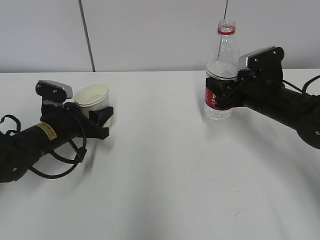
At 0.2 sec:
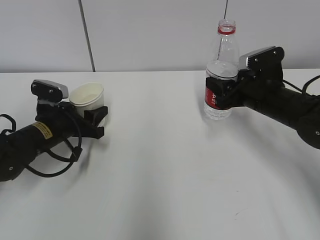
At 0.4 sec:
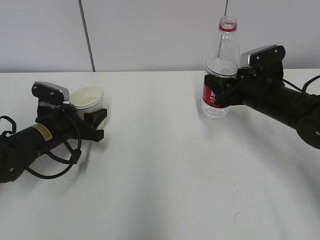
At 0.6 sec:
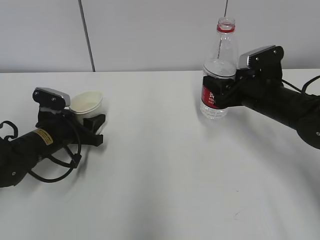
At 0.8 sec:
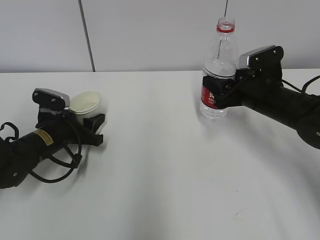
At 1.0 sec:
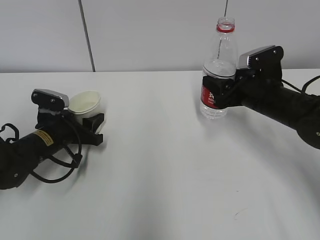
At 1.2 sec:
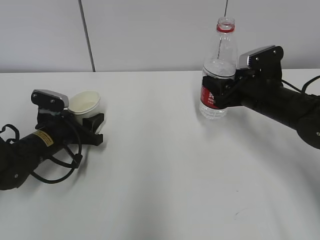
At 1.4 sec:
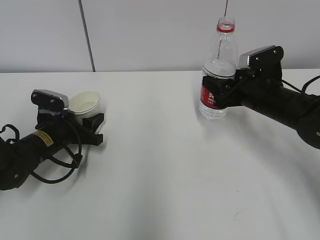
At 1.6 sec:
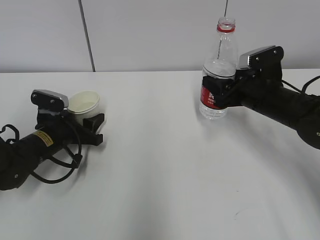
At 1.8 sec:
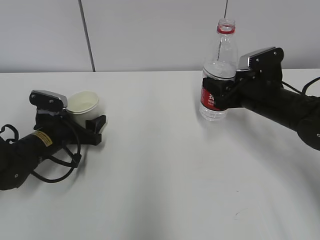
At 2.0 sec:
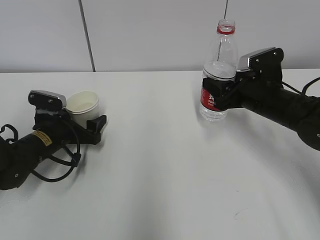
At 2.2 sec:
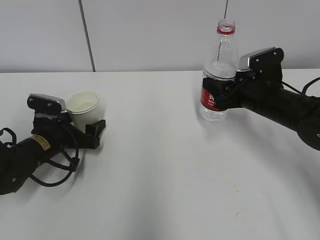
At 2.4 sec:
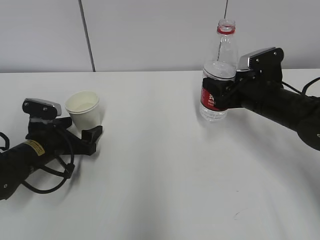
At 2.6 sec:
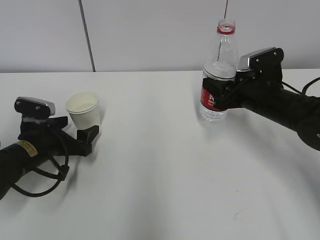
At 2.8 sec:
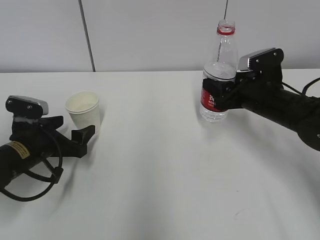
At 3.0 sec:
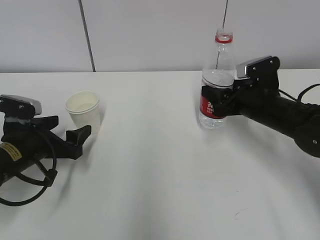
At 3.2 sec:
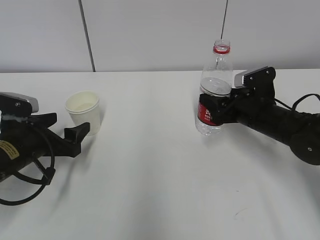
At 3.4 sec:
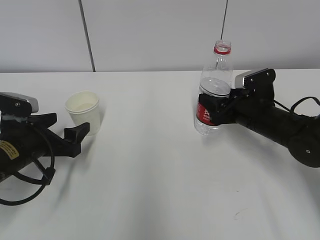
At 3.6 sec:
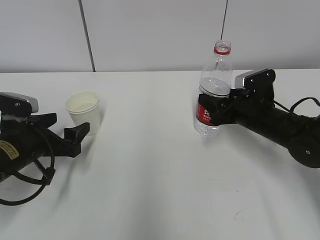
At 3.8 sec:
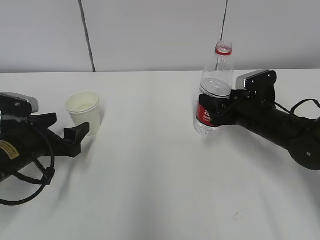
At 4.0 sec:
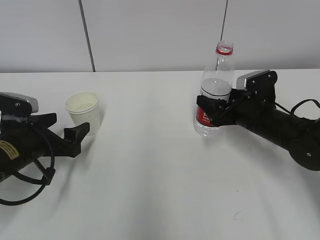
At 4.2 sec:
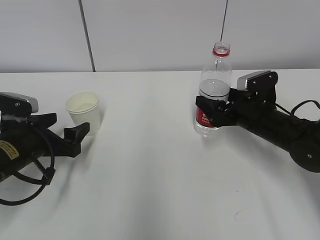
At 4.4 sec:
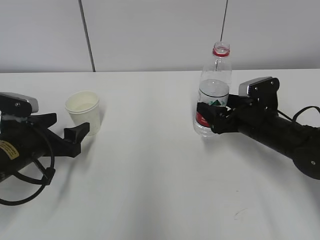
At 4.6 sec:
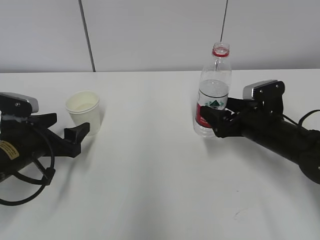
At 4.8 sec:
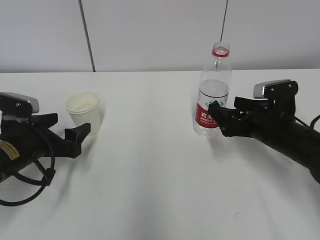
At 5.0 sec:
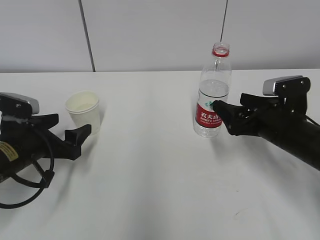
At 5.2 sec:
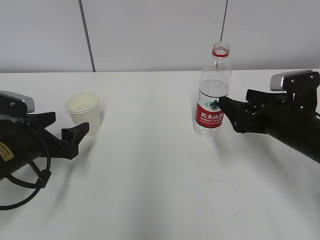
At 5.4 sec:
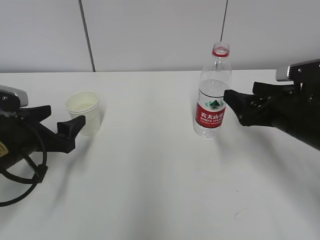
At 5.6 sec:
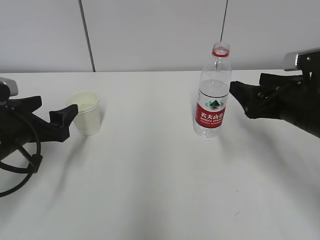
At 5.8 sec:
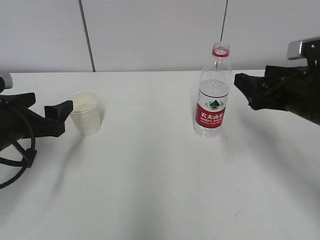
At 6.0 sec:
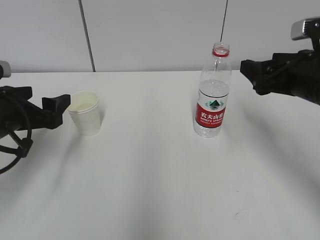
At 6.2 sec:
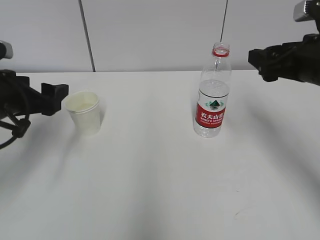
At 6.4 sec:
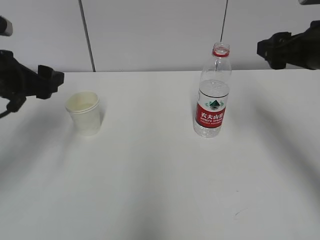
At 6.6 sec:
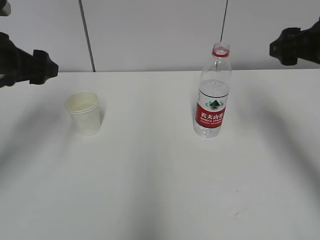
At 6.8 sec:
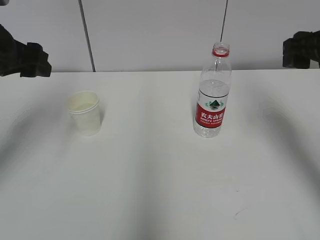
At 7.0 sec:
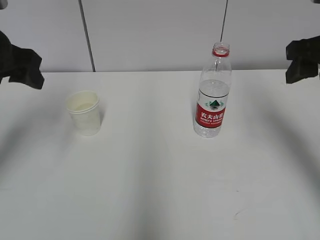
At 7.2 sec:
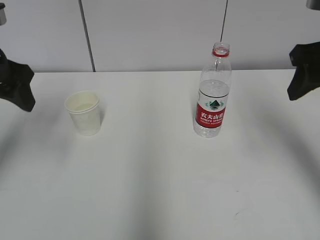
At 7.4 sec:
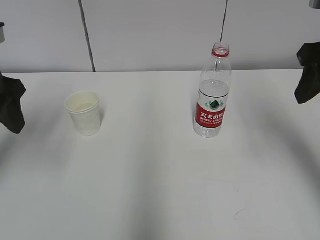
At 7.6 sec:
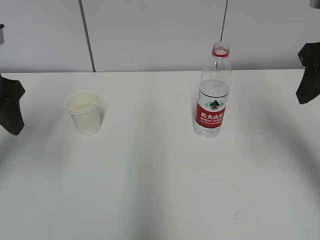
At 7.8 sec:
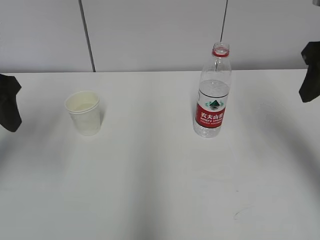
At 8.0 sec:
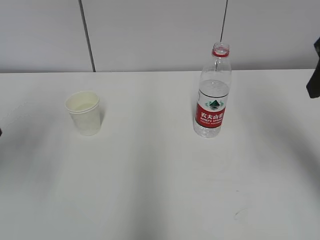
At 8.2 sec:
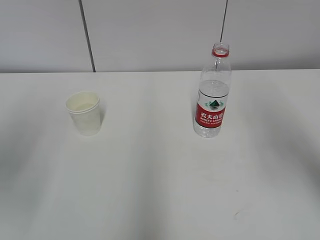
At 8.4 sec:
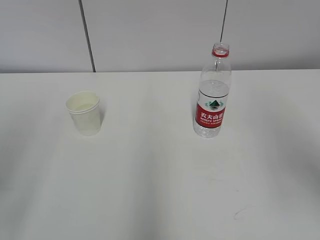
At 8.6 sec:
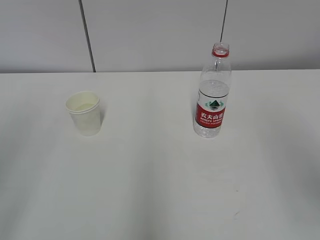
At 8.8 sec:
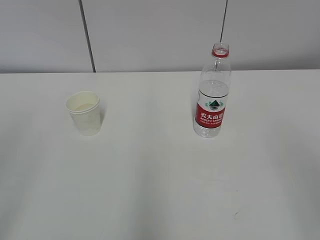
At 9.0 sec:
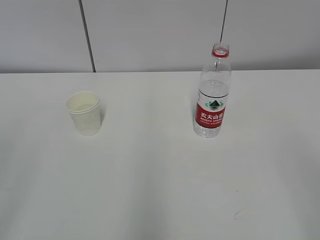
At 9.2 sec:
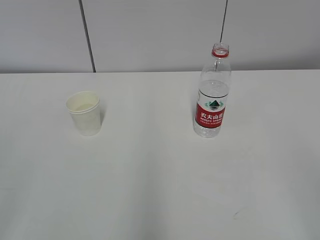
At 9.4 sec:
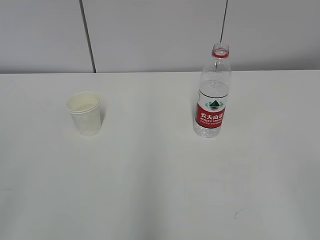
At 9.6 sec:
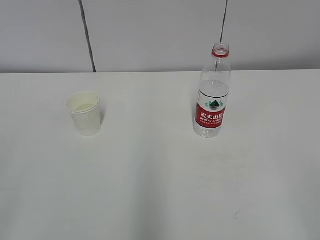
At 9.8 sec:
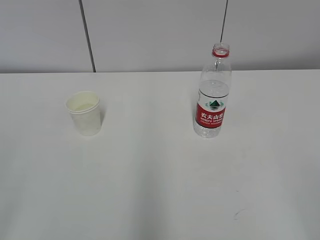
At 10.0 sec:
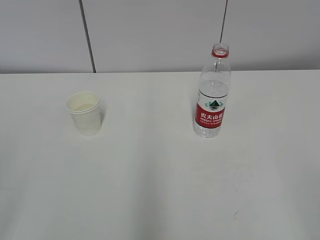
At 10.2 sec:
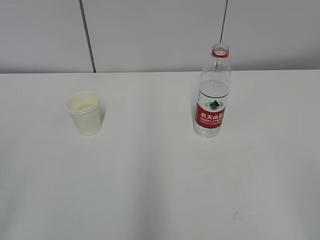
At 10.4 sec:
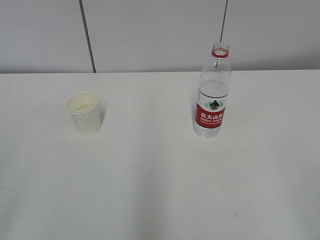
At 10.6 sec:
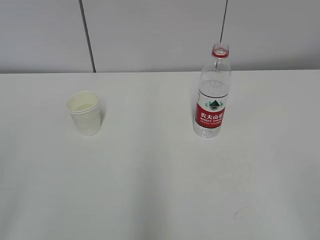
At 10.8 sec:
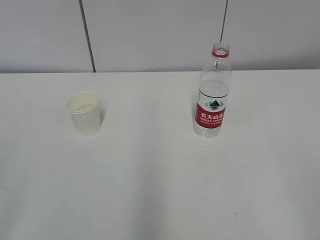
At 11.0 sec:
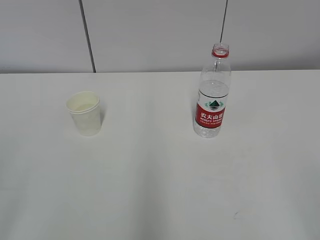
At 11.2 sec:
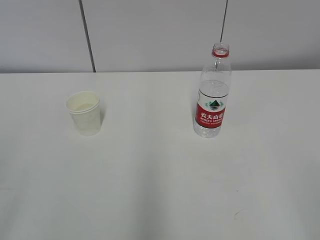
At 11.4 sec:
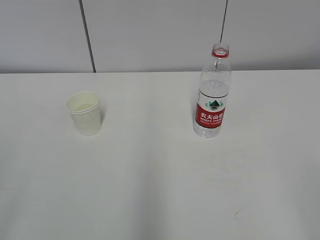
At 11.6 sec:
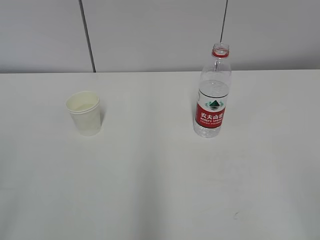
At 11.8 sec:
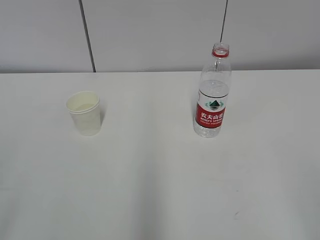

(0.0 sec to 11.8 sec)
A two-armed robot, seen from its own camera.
0.0 sec - 1.4 sec: The grippers stay close to where they were, moving slightly.
1.4 sec - 3.0 sec: The left gripper goes some 5 cm backward, and opens its fingers.
3.0 sec - 4.4 sec: The right gripper opens its fingers.
4.4 sec - 6.0 sec: The left gripper goes approximately 5 cm upward, while the right gripper heads upward and backward, covering about 15 cm.
6.0 sec - 7.4 sec: The grippers both shift upward by approximately 10 cm. The right gripper closes up.
7.4 sec - 8.8 sec: The two grippers go about 20 cm backward.
10.4 sec - 11.8 sec: Neither gripper changes place.

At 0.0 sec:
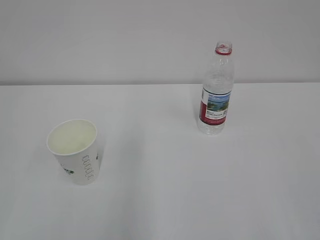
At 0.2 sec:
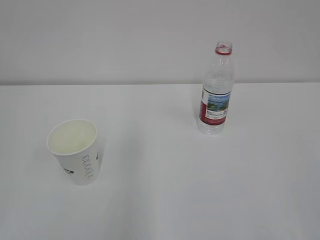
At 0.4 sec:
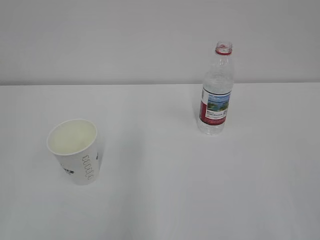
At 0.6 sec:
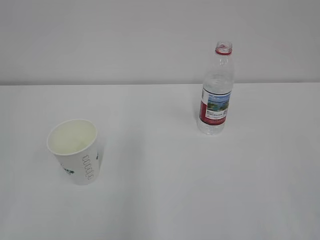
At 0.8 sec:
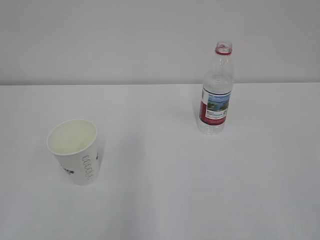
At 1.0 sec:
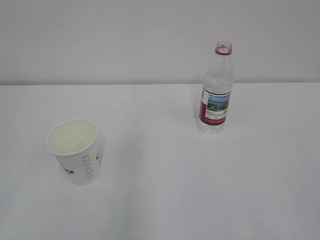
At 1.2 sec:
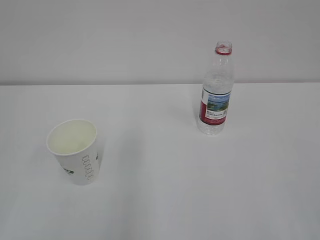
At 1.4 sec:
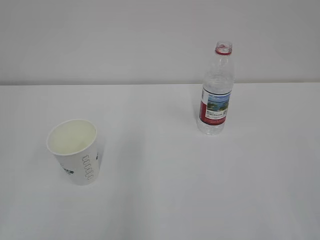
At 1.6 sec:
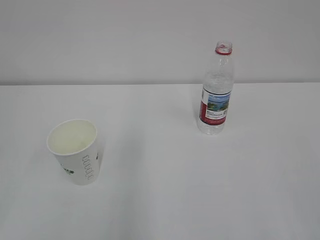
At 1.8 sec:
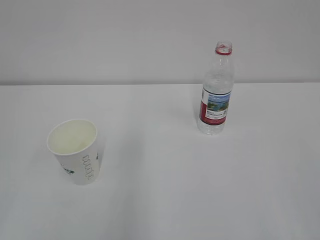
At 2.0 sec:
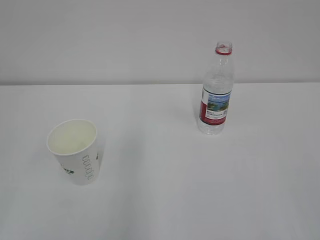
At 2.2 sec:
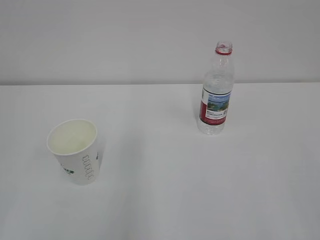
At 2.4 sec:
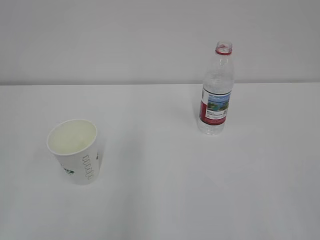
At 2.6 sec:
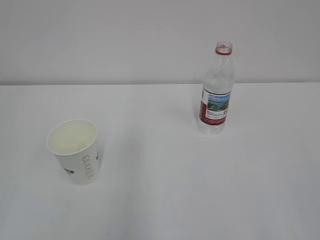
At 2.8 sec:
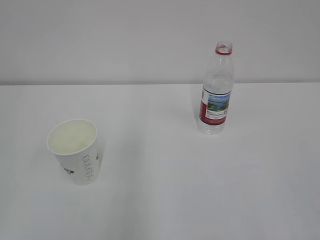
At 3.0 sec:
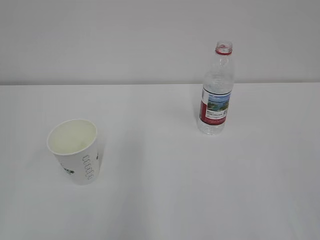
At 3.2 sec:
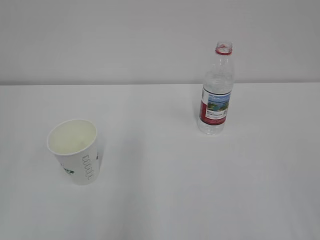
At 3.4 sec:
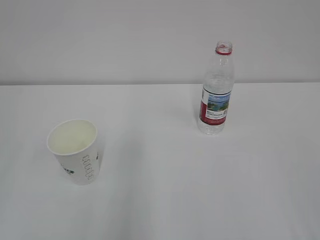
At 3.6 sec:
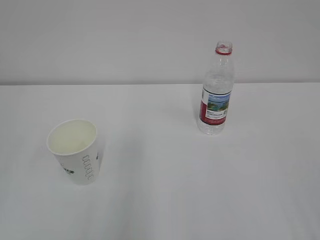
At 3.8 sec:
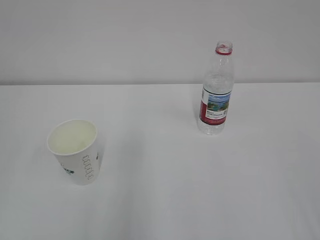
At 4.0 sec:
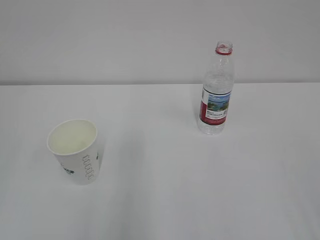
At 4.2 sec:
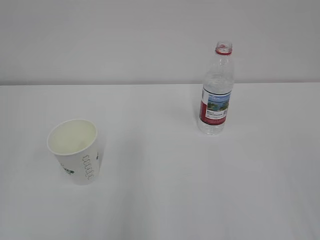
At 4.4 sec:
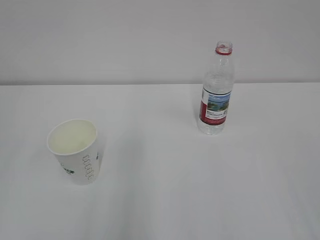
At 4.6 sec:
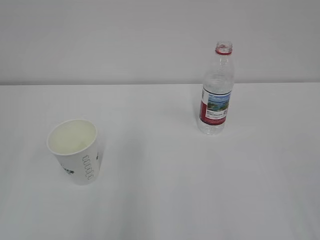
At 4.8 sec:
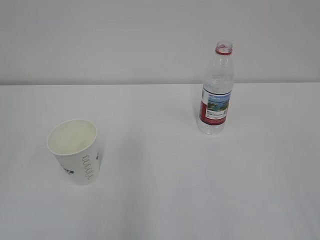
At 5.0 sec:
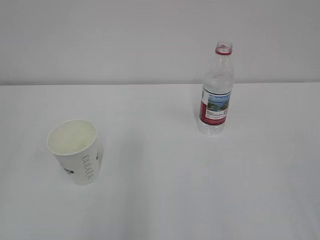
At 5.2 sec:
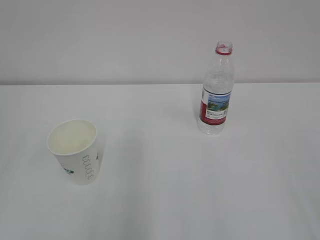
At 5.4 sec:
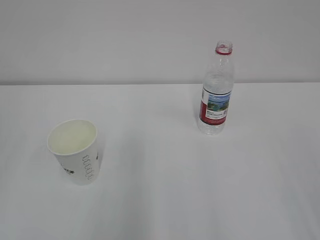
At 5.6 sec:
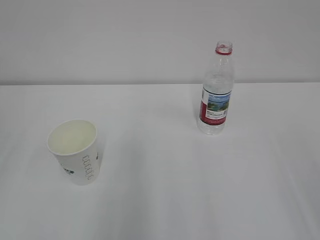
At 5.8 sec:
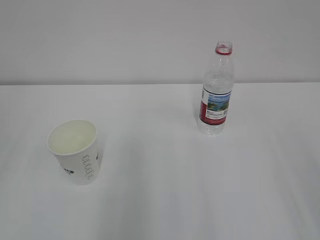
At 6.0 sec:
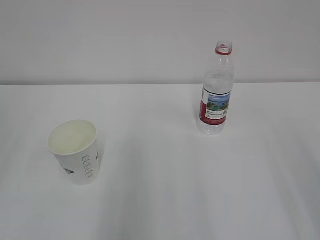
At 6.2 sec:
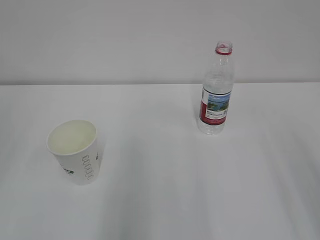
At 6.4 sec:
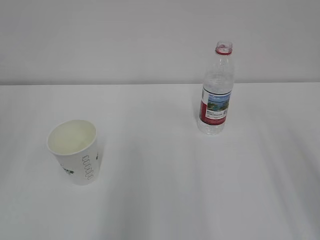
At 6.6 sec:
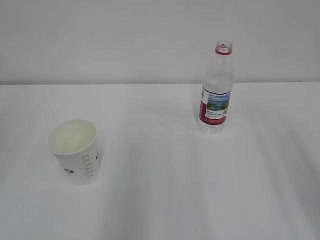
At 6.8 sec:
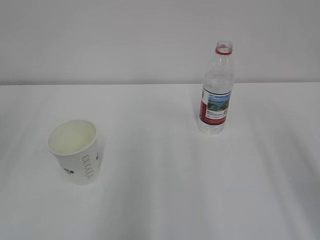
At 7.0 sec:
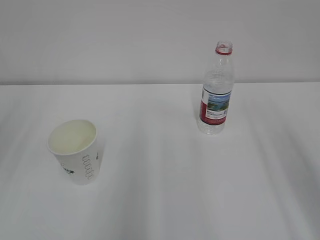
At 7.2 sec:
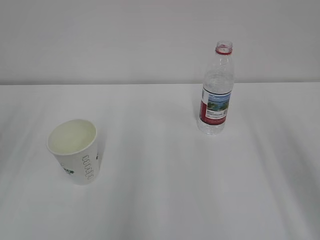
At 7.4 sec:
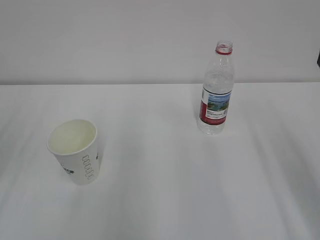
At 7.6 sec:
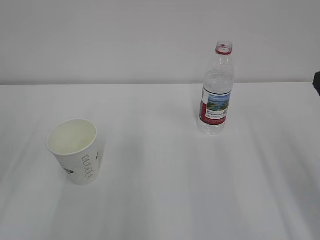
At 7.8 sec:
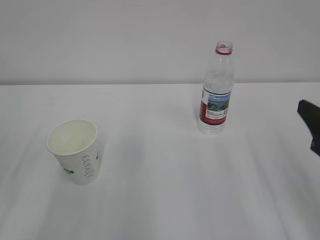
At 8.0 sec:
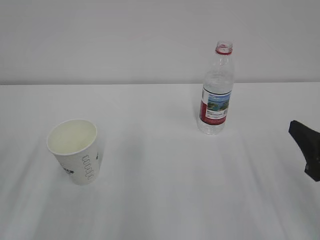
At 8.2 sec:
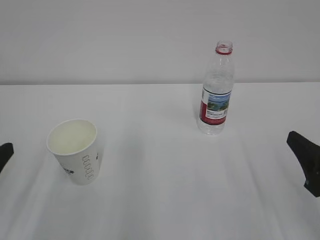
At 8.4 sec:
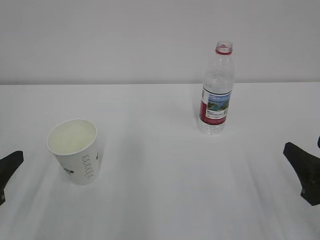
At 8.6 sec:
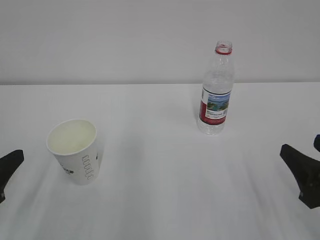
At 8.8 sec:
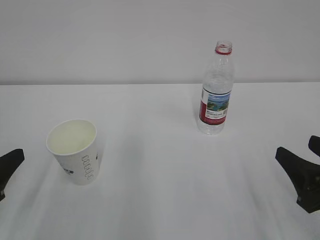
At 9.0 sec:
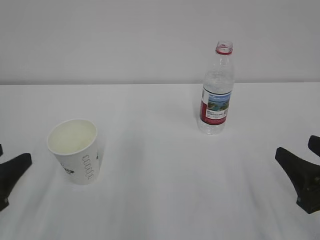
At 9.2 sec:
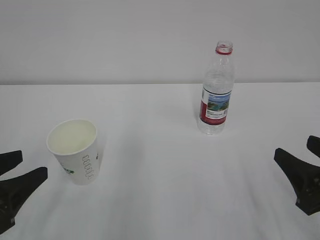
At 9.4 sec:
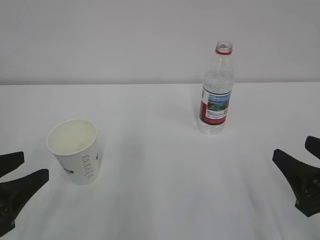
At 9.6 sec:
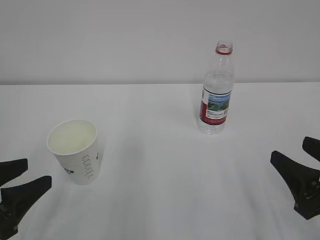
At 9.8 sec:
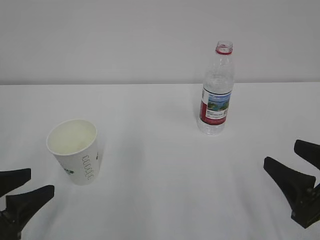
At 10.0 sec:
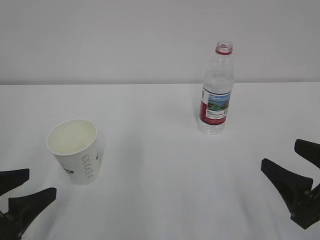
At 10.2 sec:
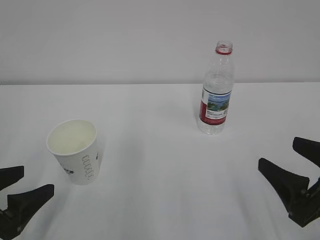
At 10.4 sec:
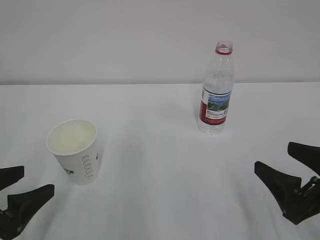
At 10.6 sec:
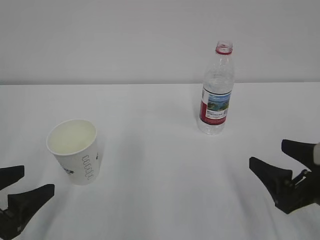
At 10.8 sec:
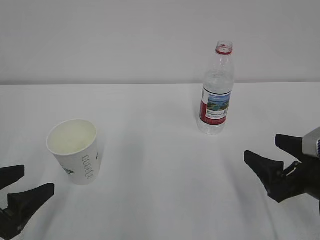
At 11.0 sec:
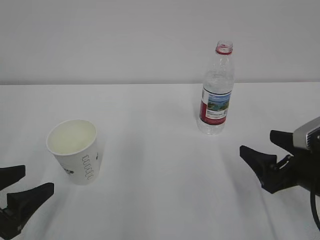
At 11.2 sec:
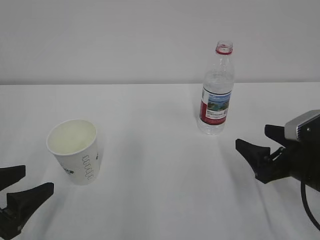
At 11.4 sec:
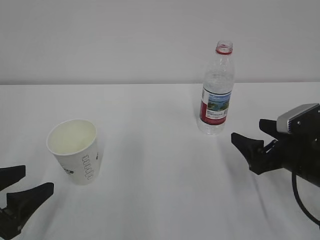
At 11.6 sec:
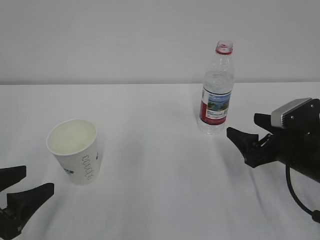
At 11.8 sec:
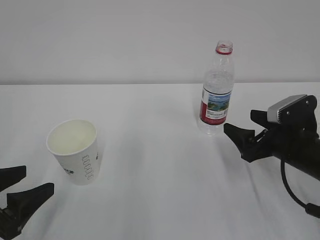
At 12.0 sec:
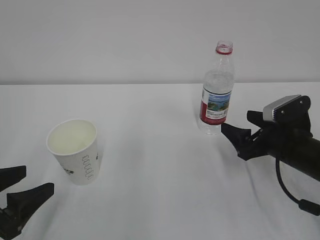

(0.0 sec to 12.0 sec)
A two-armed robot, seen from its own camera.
7.6 sec - 9.0 sec: Both grippers move downward, roughly 10 cm.
9.0 sec - 10.4 sec: The left gripper opens. Meanwhile the right gripper opens.
10.4 sec - 12.0 sec: The right gripper travels forward by approximately 15 cm.
